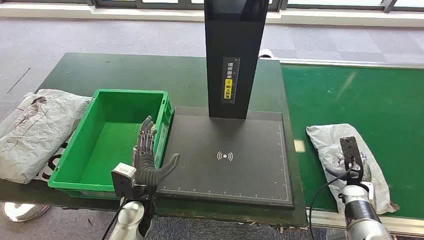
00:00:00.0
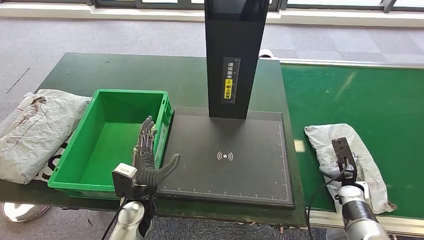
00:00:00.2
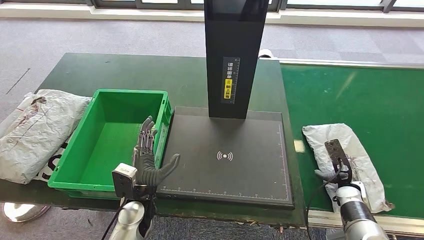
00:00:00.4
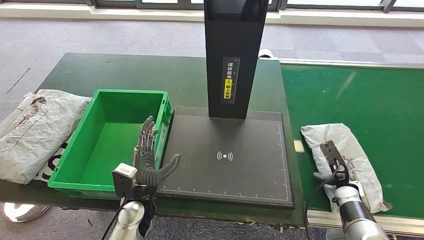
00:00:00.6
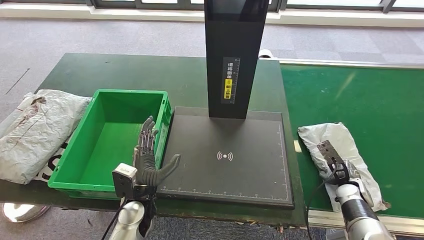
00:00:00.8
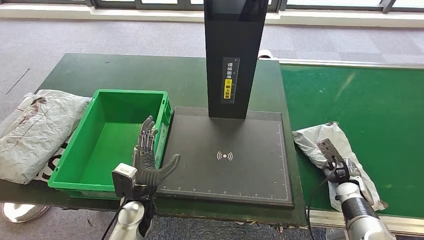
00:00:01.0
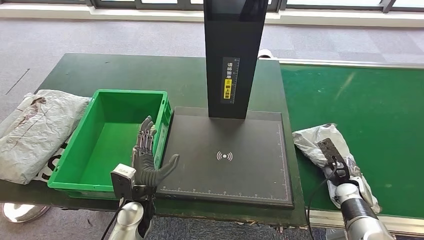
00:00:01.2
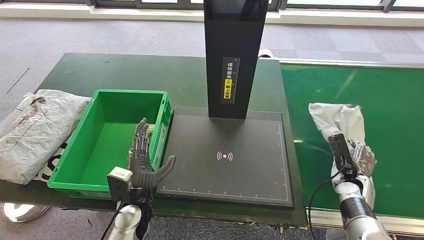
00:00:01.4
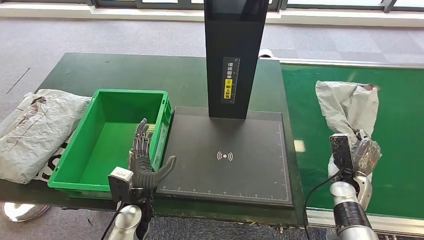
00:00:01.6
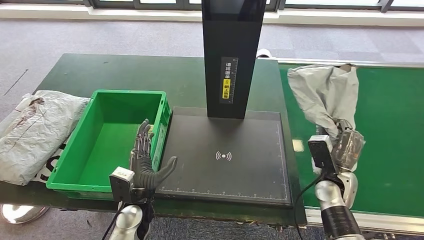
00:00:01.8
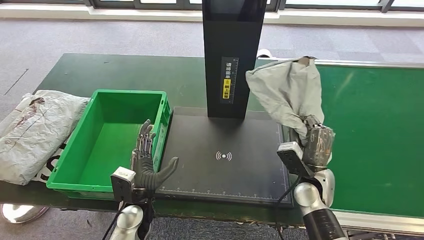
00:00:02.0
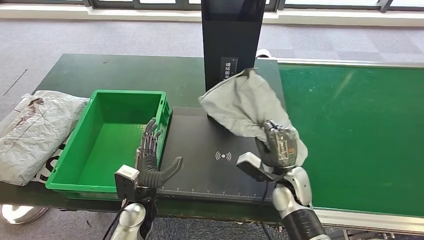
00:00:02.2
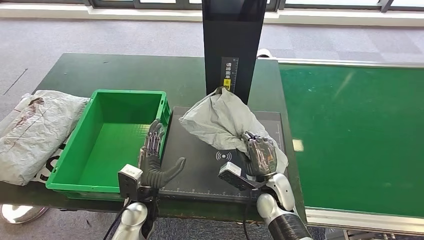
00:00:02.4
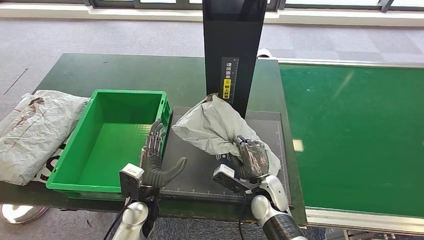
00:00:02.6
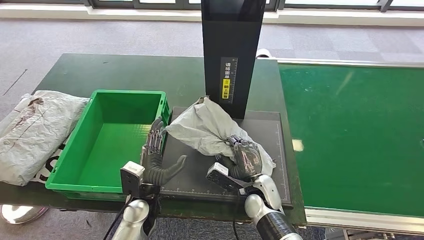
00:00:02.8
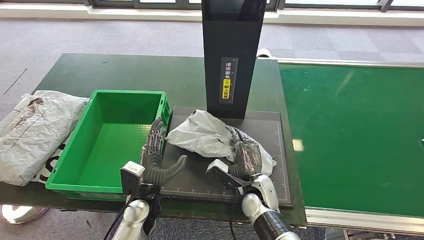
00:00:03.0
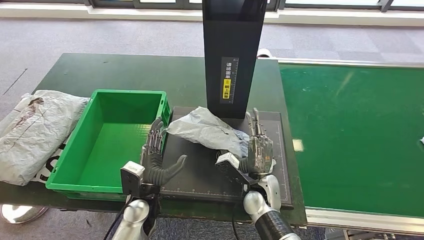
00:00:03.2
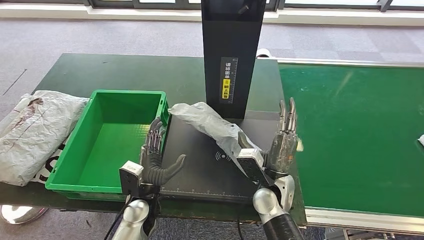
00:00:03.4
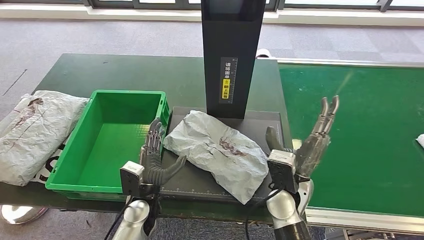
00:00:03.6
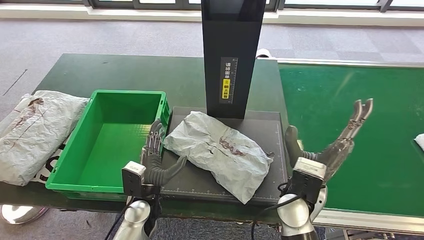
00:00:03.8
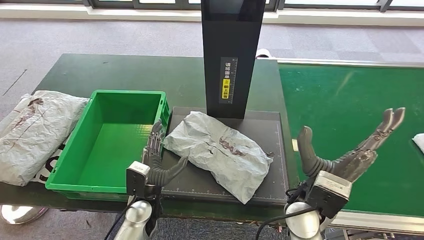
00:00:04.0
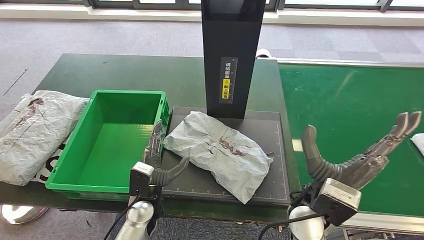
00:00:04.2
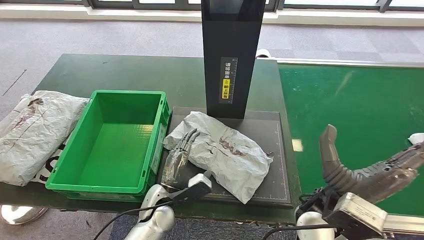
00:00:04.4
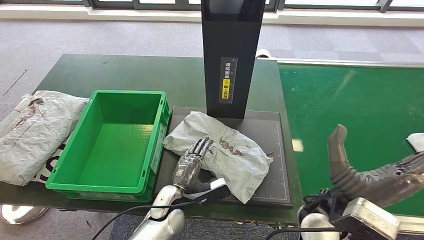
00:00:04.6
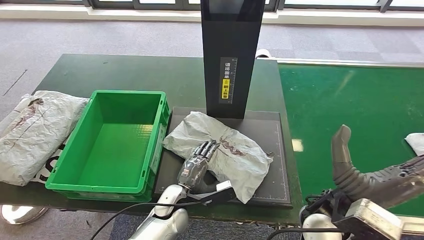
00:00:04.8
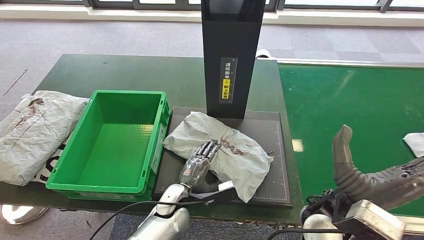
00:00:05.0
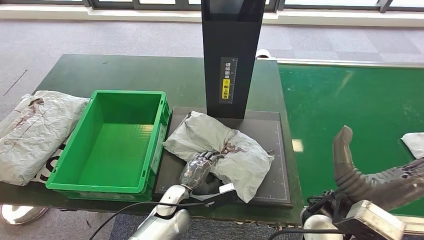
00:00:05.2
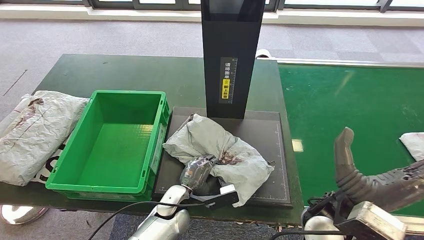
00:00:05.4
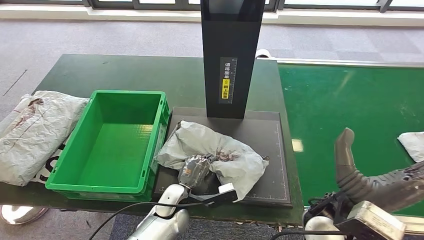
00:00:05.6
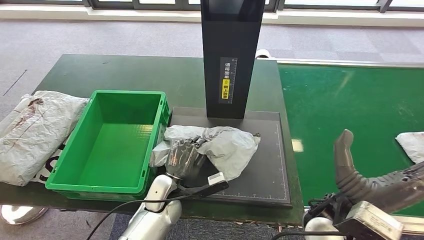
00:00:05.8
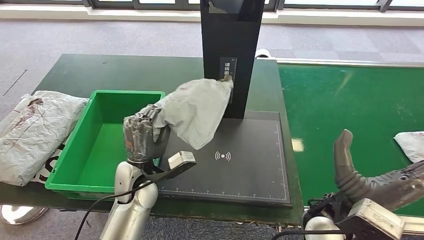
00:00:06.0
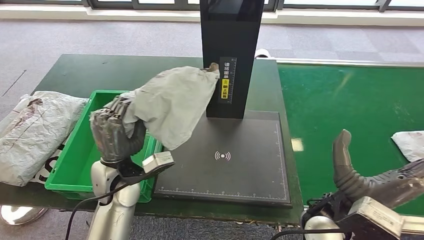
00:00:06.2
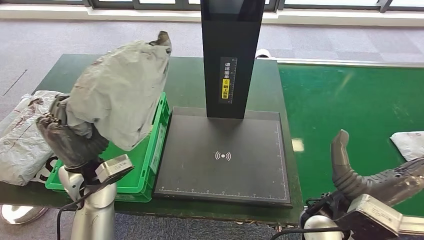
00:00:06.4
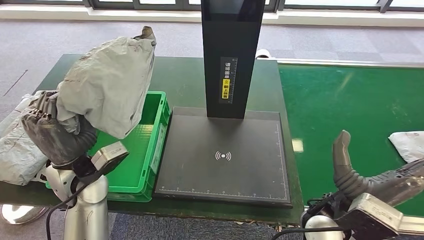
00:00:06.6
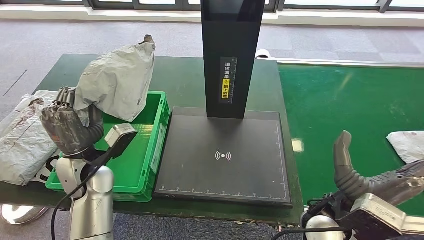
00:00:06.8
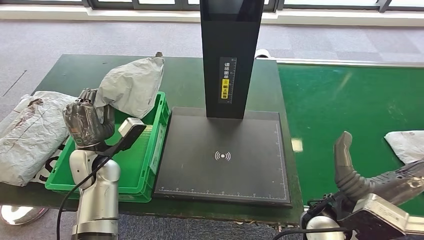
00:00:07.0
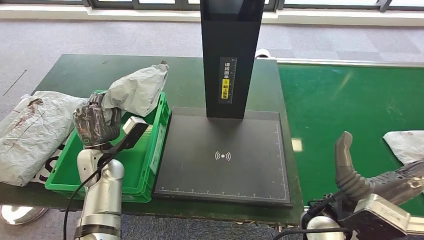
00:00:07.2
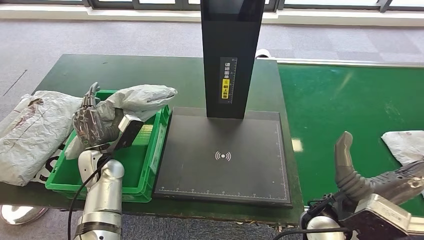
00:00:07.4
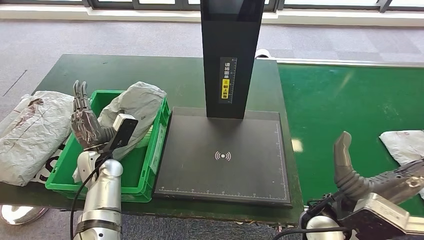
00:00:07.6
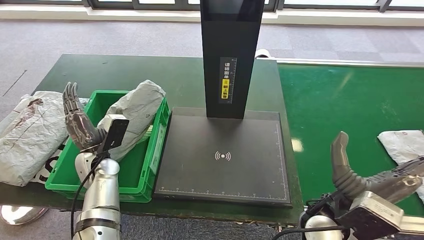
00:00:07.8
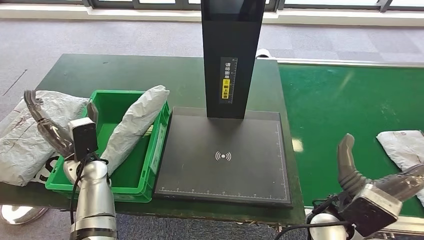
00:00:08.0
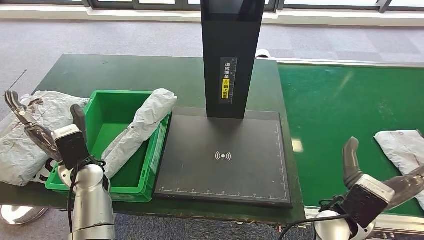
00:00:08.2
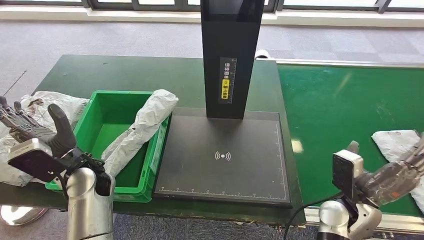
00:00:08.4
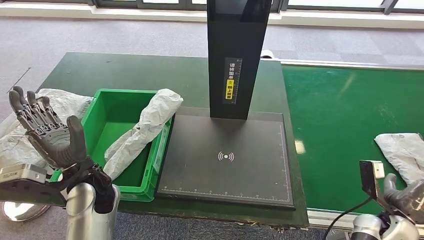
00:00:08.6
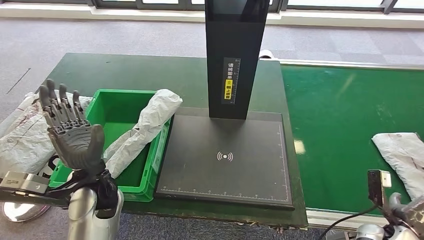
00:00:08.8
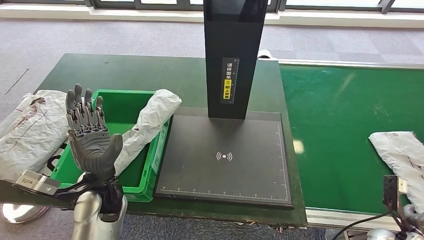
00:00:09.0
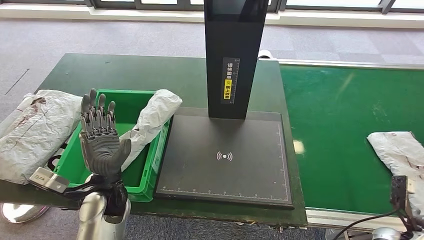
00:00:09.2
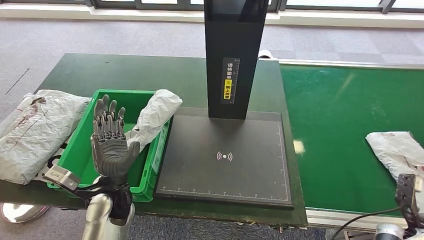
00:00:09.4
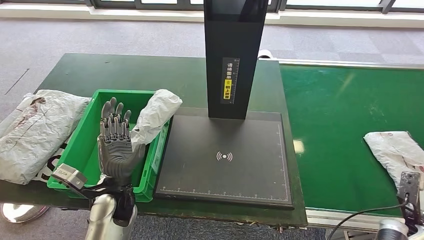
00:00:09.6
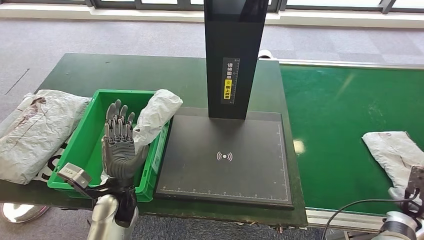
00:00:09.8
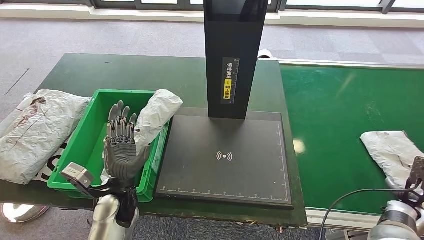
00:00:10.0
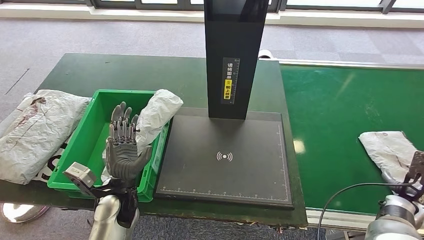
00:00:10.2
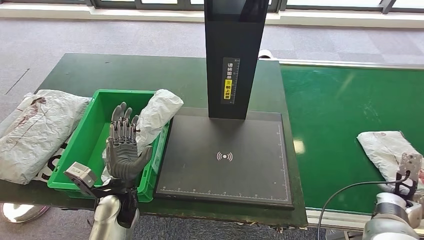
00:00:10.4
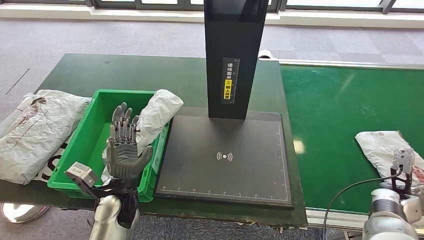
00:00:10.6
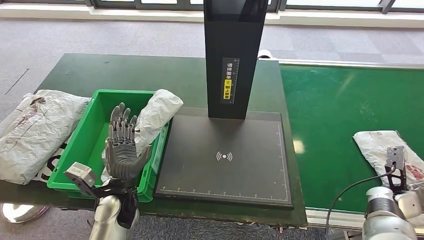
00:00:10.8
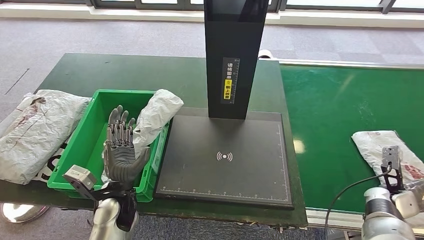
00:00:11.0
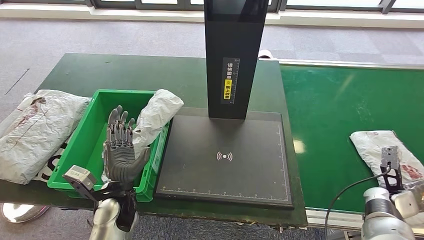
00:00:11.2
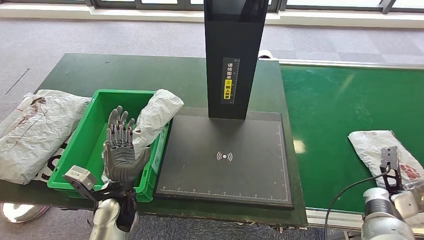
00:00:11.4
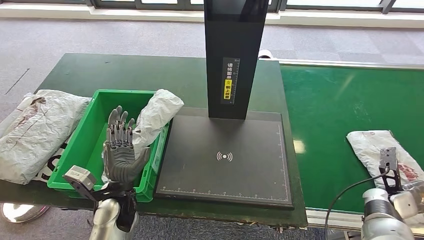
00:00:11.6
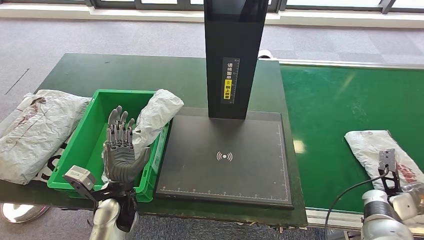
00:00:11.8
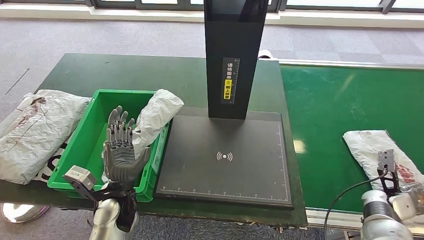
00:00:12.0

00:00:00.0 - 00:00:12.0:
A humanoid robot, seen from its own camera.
Step, 00:00:00.0 - 00:00:02.2: Take the parcel off the conveyor belt.
Step, 00:00:02.4 - 00:00:04.8: Place the parcel onto the inbound machine.
Step, 00:00:05.2 - 00:00:06.8: Pick up the parcel from the inbound machine.
Step, 00:00:07.0 - 00:00:09.2: Put the parcel inside the courier box.
00:00:03.0 - 00:00:04.4: The right hand moves upward, some 15 cm.
00:00:04.4 - 00:00:06.0: The left hand shifts approximately 10 cm upward.
00:00:06.0 - 00:00:07.6: The left hand travels to the left by some 10 cm.
00:00:09.0 - 00:00:10.4: The right hand heads forward, covering some 10 cm, while the left hand shifts about 5 cm downward.

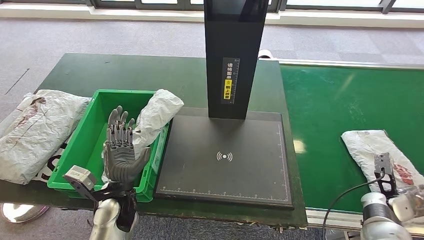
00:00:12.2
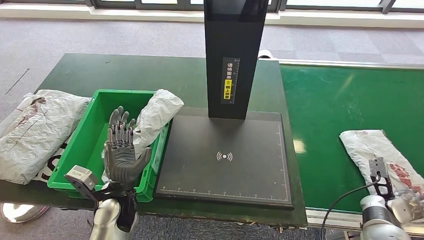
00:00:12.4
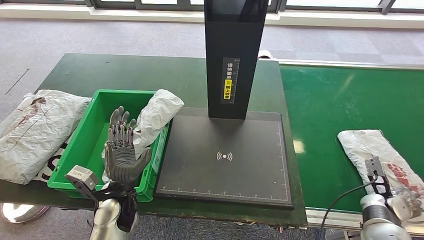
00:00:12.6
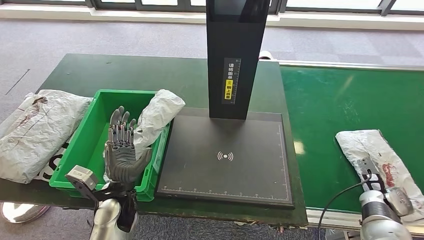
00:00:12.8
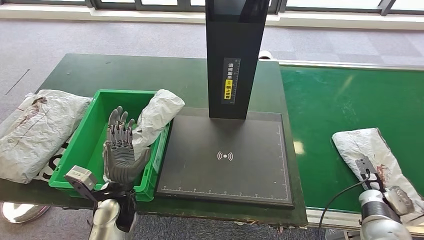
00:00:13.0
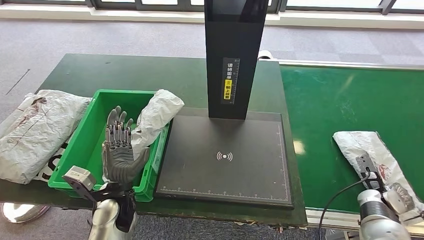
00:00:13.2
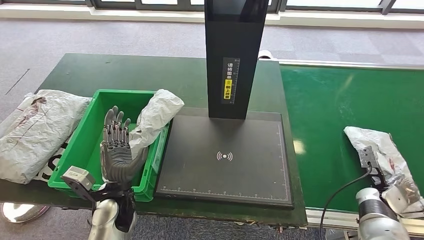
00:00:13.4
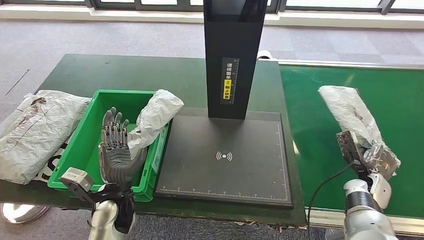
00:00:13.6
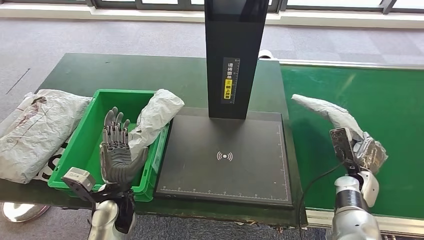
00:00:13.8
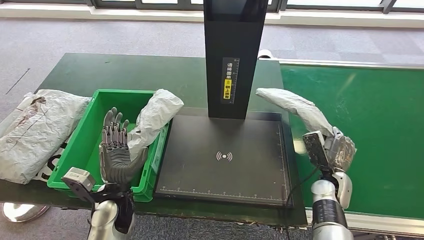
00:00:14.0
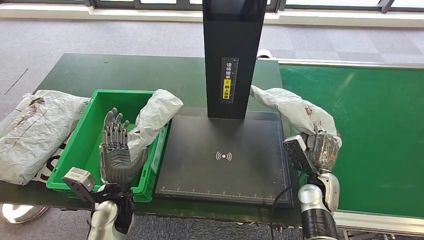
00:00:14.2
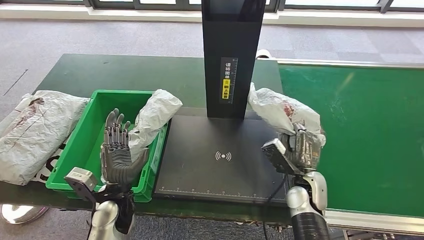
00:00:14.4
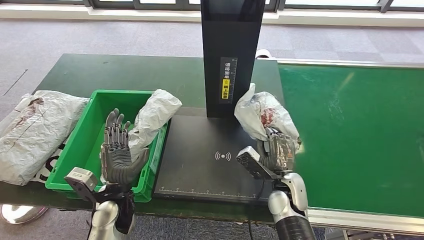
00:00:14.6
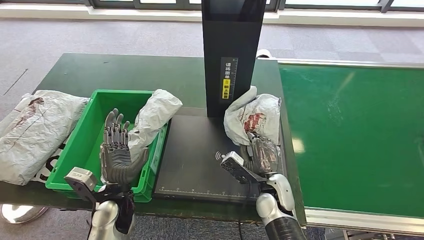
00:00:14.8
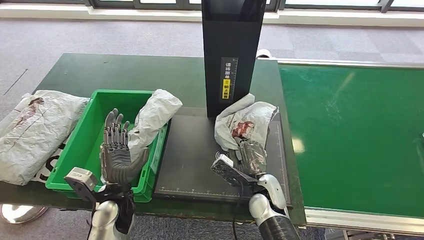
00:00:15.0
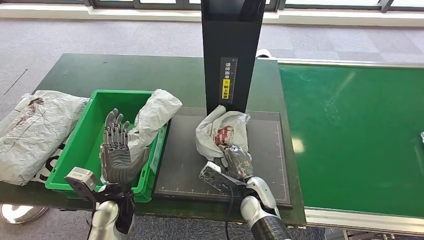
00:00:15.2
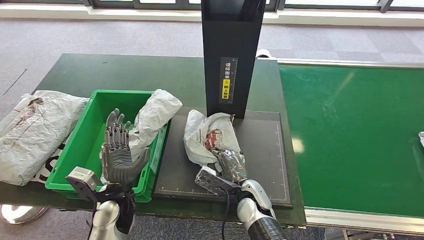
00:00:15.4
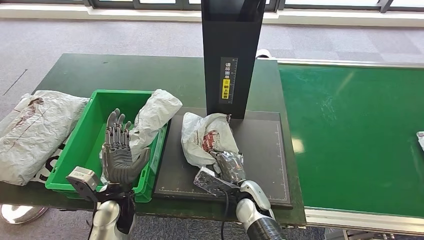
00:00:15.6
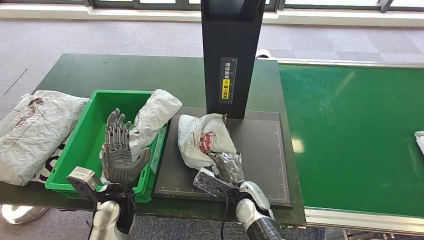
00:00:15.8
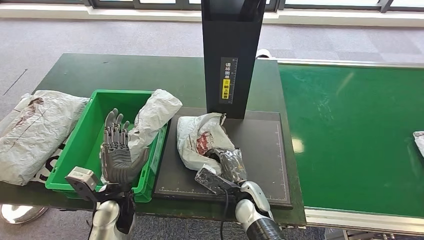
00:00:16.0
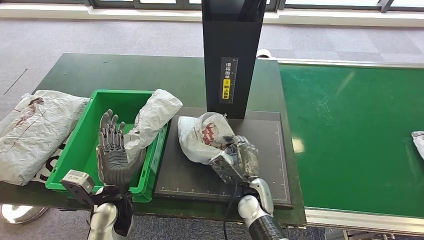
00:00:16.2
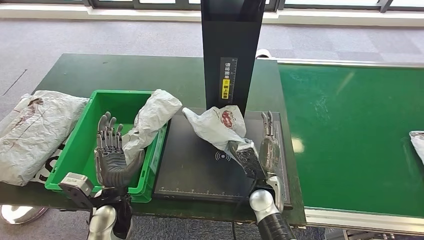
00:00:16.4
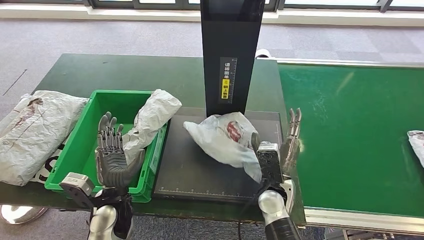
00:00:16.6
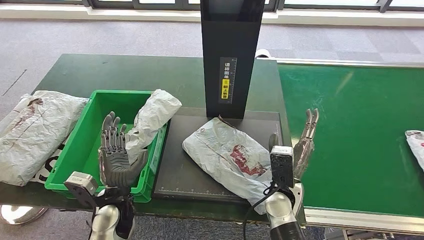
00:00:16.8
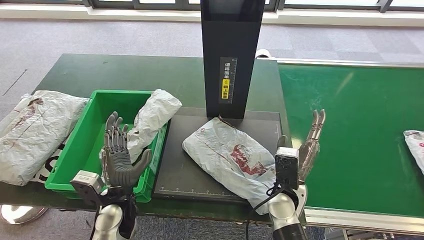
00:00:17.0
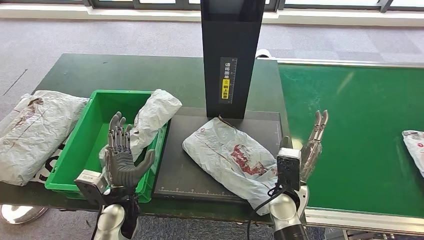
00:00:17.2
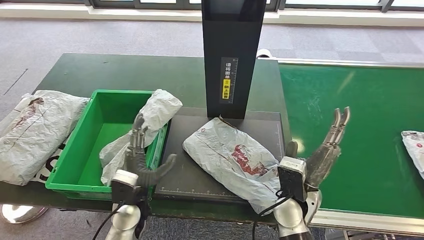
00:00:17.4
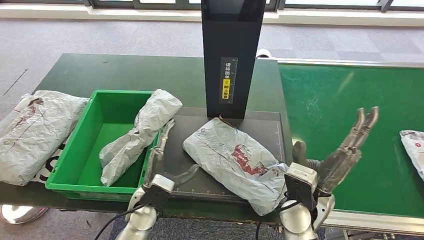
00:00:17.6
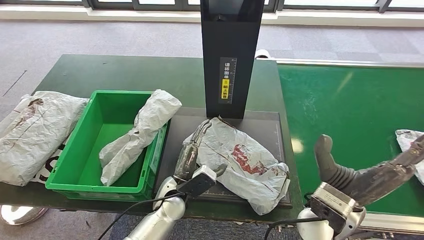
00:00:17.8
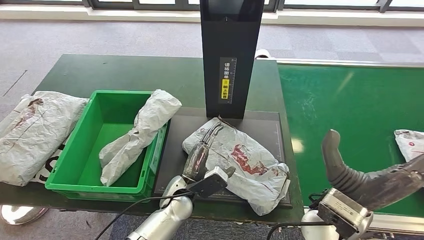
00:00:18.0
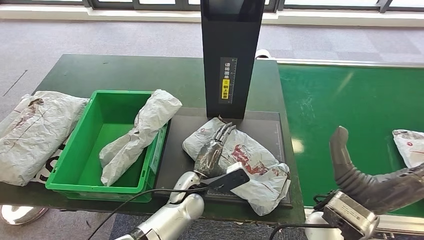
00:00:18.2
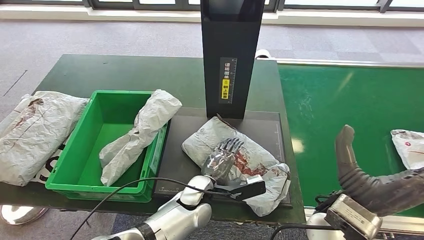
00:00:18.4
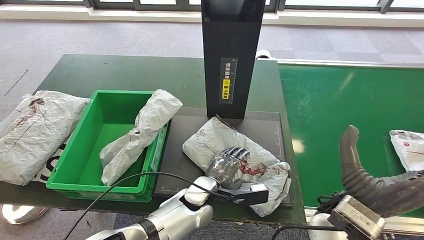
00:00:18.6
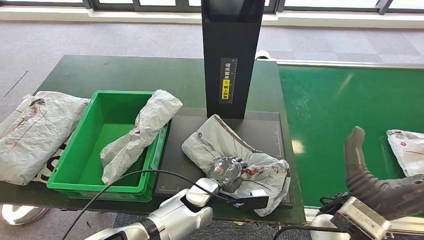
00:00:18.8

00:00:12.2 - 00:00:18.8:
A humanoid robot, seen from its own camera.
Step, 00:00:12.2 - 00:00:14.2: Pick up the parcel from the conveyor belt.
Step, 00:00:14.6 - 00:00:17.0: Place the parcel onto the inbound machine.
00:00:12.2 - 00:00:13.8: The right hand goes roughly 10 cm to the left.
00:00:15.4 - 00:00:17.2: The right hand travels upward and to the right by roughly 10 cm.
